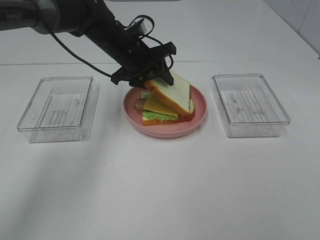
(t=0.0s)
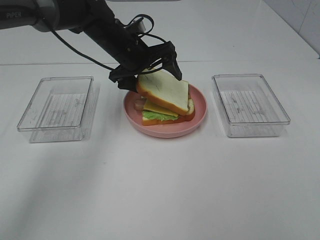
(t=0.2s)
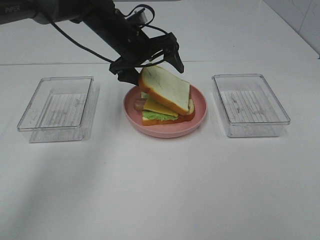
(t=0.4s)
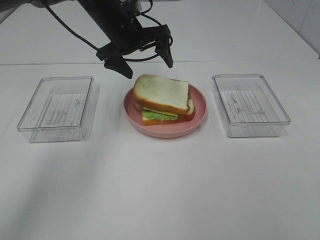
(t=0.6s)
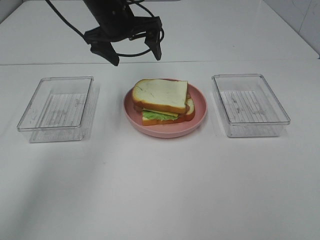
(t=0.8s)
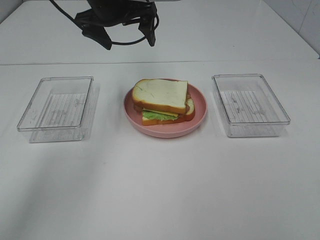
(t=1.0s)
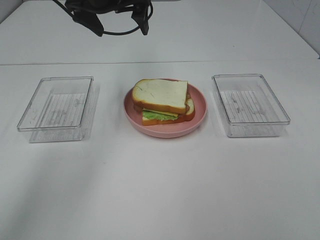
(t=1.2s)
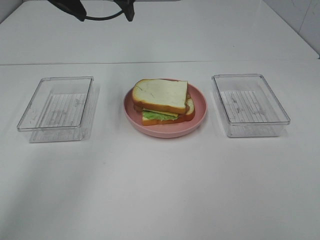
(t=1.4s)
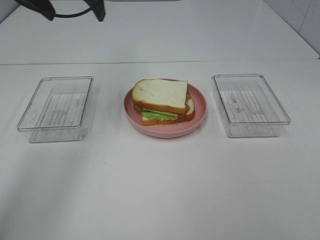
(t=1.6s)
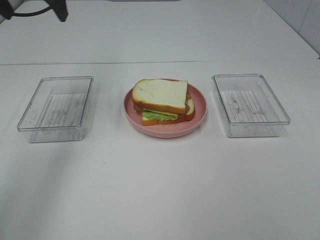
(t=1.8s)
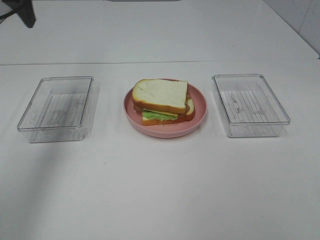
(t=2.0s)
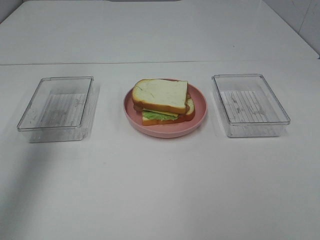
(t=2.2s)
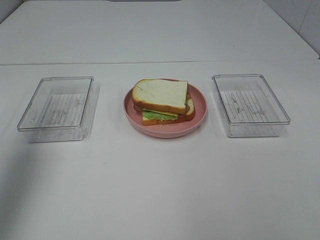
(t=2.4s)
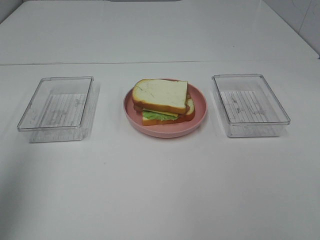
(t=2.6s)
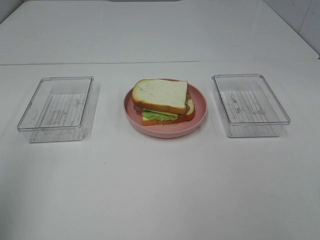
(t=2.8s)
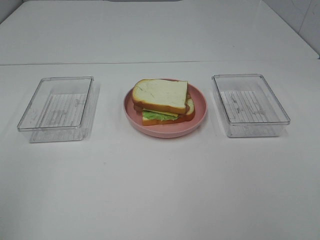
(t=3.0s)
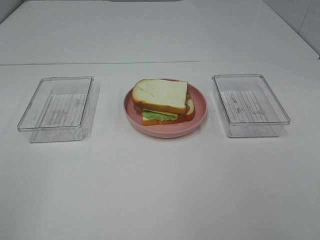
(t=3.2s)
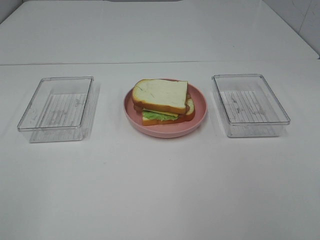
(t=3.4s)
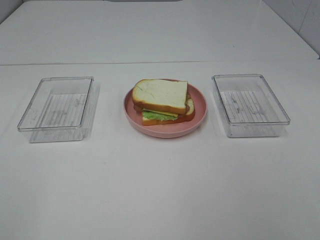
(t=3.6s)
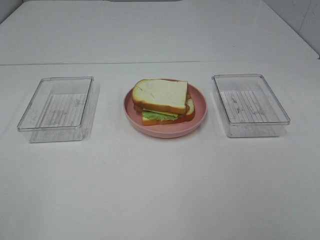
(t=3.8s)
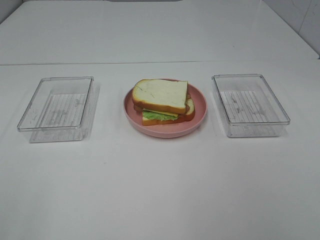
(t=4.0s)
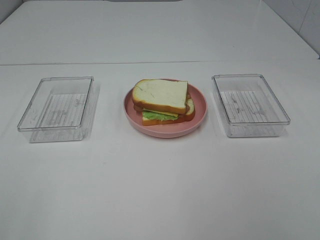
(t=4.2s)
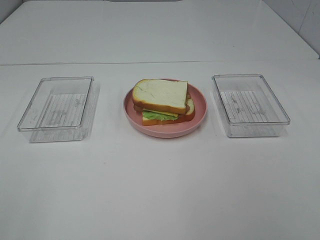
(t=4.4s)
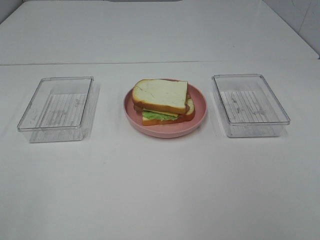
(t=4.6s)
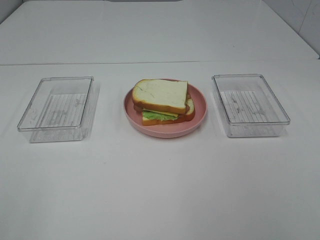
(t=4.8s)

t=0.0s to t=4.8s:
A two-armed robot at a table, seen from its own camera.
Task of the whole recording: Make sandwiches.
t=0.0s to t=1.6s: The left gripper is displaced upward and to the left by about 20 cm, and opens up.
t=1.6s to t=3.2s: The left gripper shifts roughly 40 cm backward.
